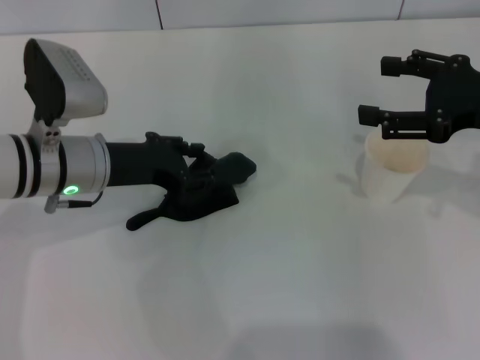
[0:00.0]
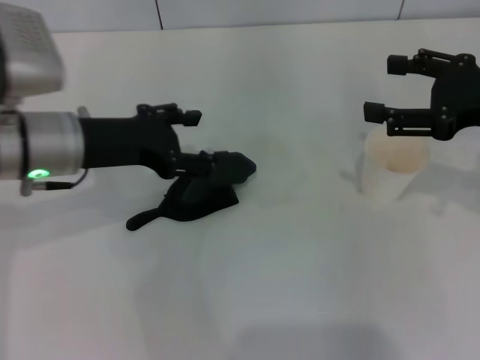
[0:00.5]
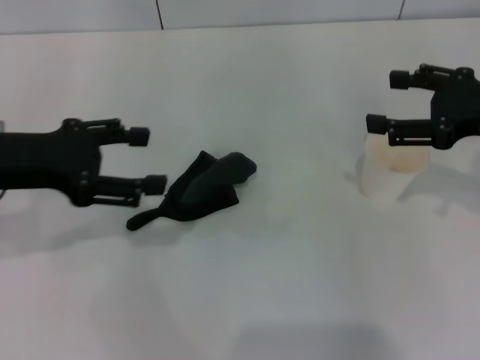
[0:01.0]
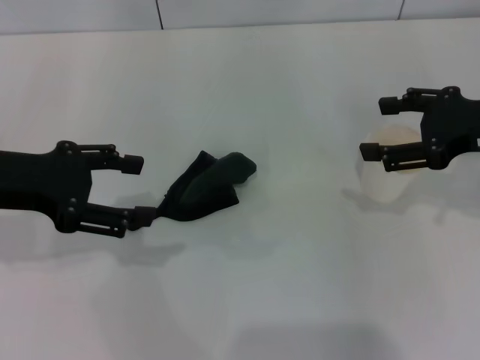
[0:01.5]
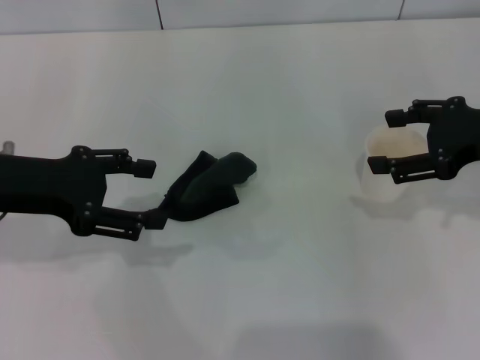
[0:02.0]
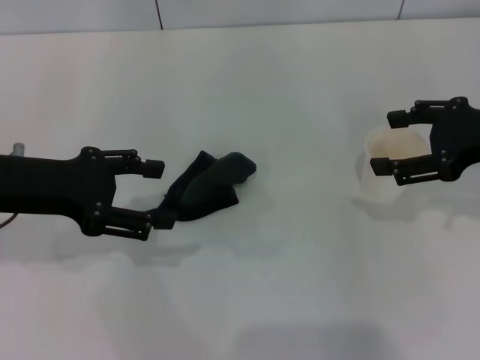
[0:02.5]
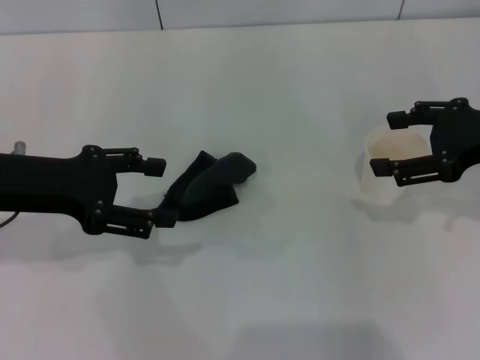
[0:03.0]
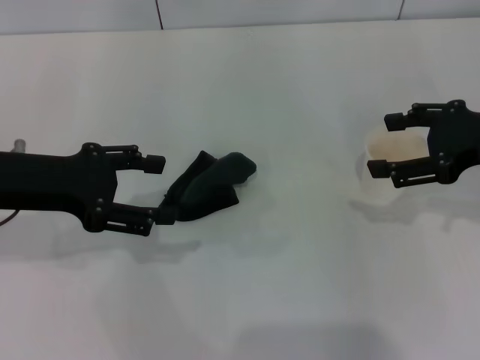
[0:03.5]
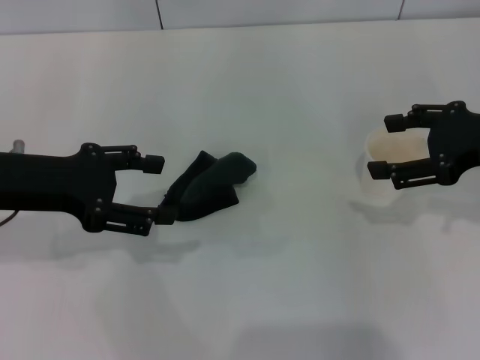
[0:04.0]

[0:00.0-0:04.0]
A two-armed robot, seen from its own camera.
0:00.0 to 0:02.0: The left gripper shifts approximately 10 cm to the left and upward, and opens its fingers.
0:02.0 to 0:04.0: The two grippers keep their place.
